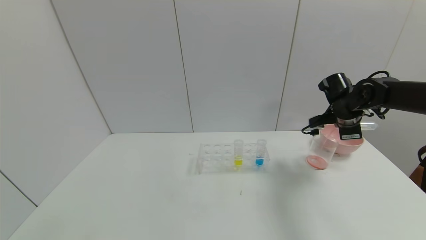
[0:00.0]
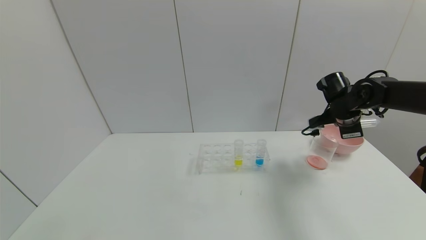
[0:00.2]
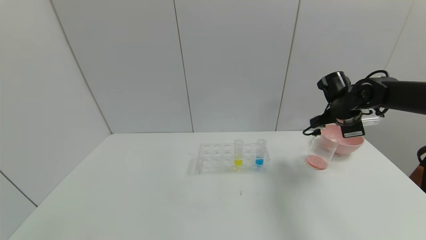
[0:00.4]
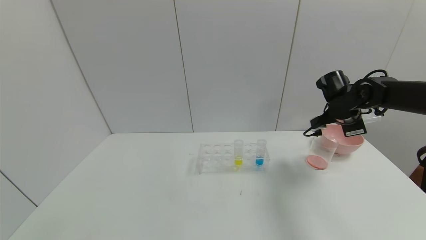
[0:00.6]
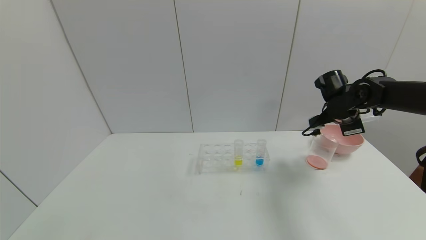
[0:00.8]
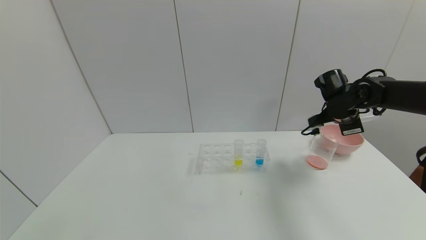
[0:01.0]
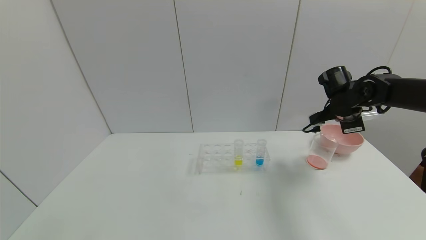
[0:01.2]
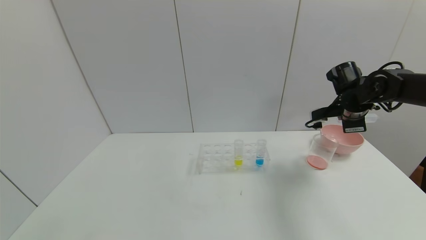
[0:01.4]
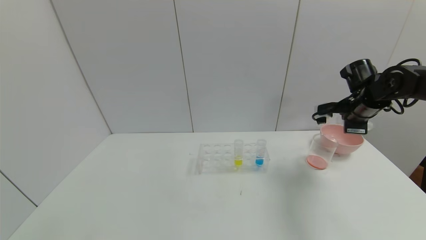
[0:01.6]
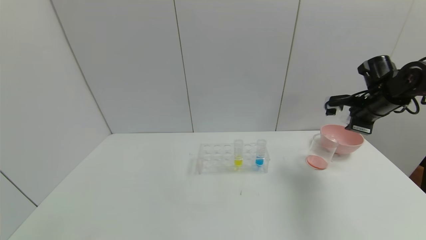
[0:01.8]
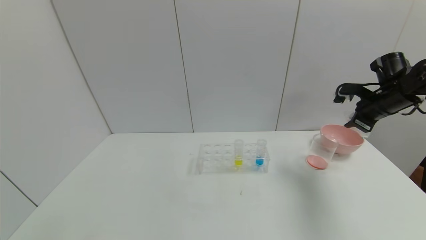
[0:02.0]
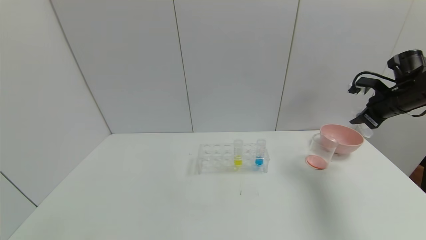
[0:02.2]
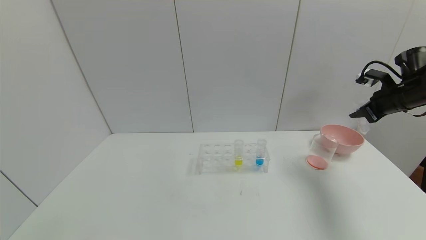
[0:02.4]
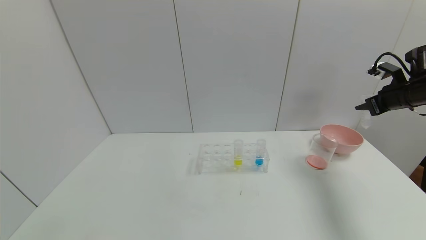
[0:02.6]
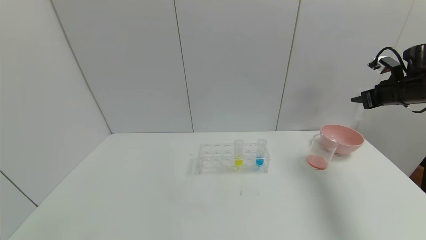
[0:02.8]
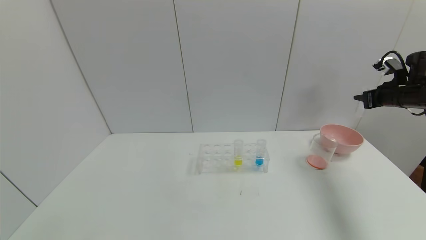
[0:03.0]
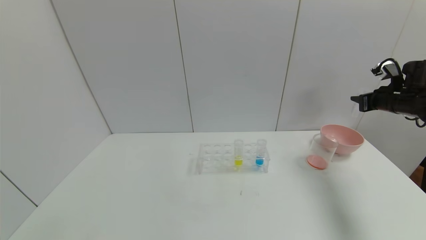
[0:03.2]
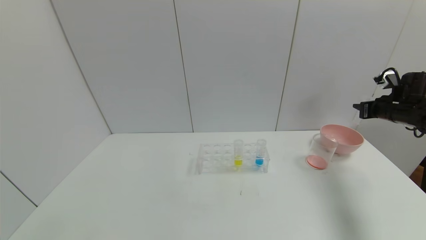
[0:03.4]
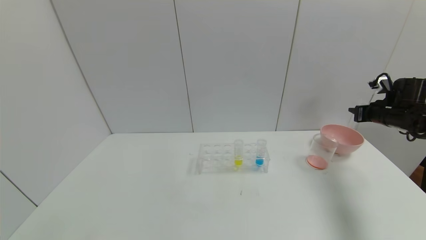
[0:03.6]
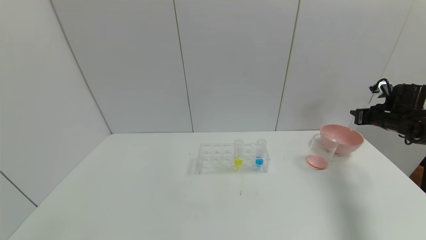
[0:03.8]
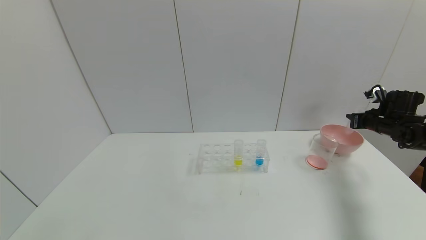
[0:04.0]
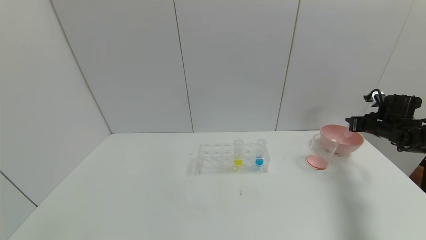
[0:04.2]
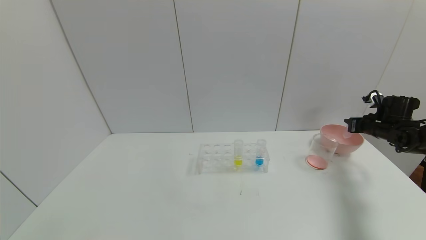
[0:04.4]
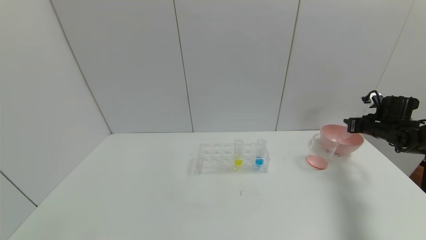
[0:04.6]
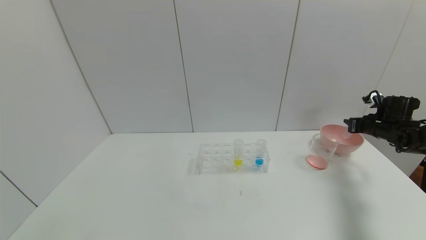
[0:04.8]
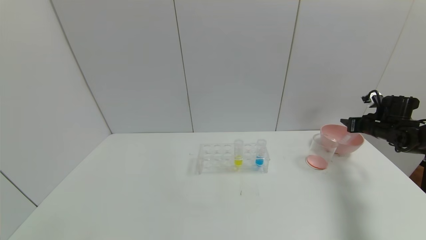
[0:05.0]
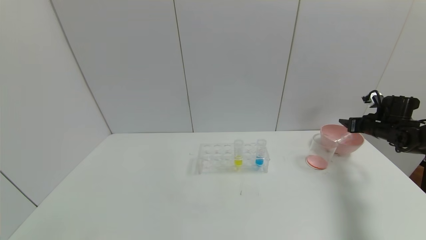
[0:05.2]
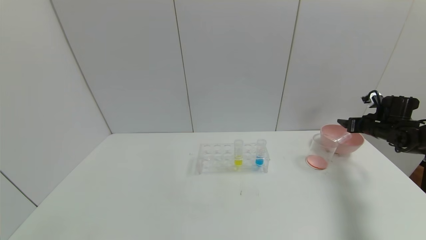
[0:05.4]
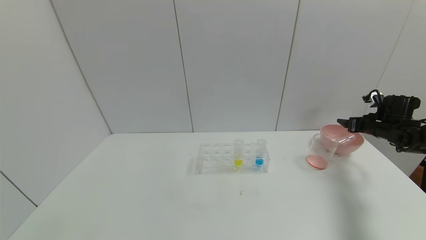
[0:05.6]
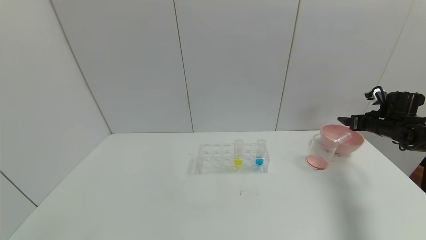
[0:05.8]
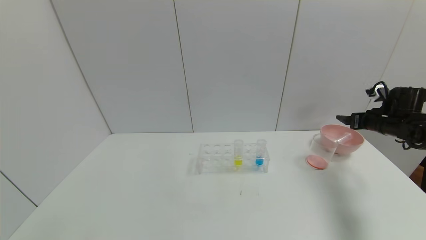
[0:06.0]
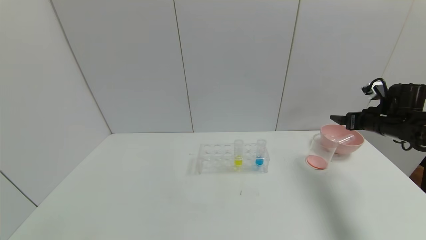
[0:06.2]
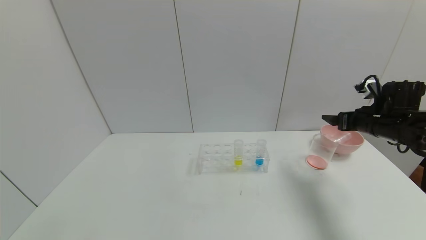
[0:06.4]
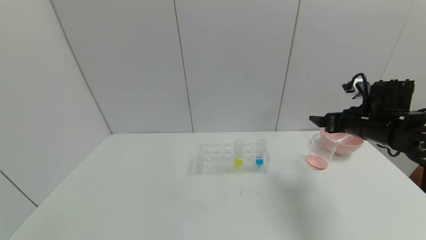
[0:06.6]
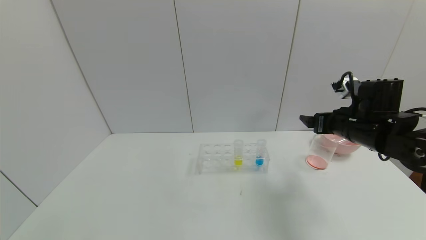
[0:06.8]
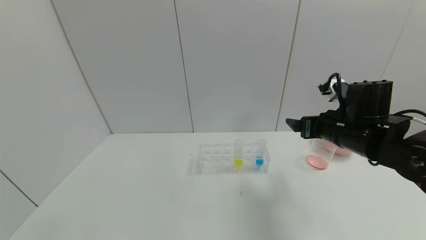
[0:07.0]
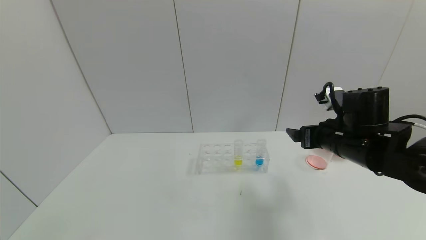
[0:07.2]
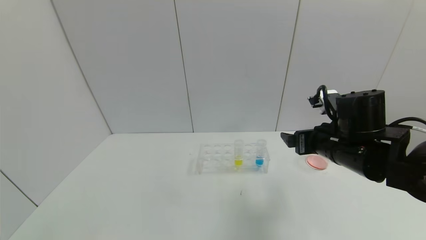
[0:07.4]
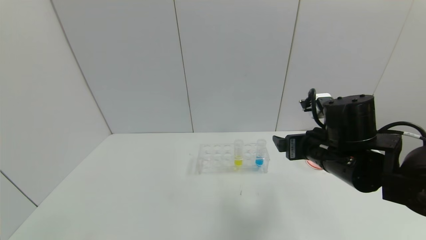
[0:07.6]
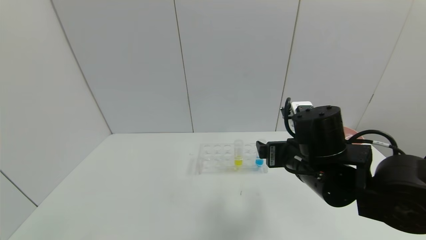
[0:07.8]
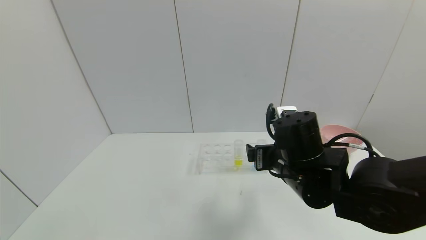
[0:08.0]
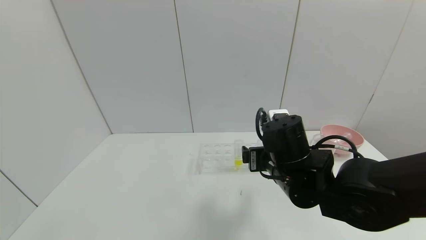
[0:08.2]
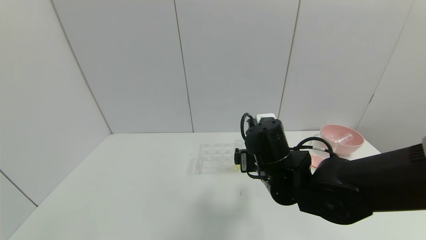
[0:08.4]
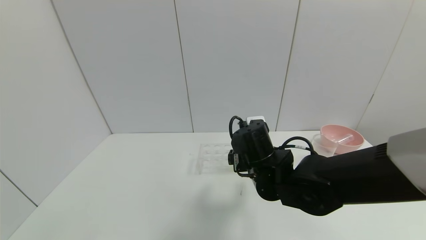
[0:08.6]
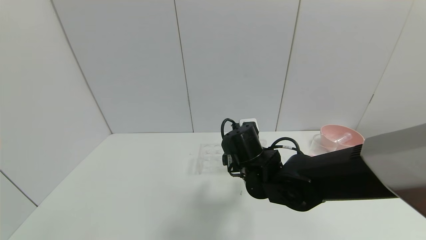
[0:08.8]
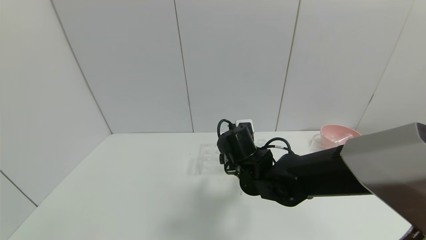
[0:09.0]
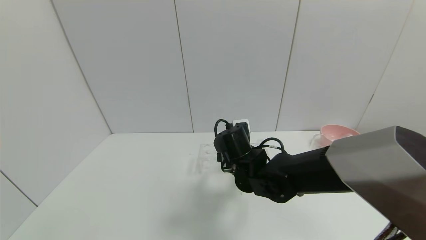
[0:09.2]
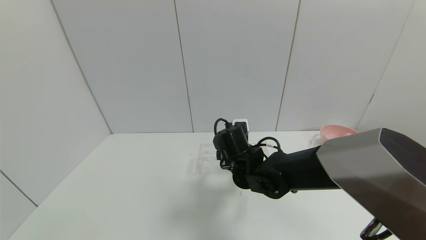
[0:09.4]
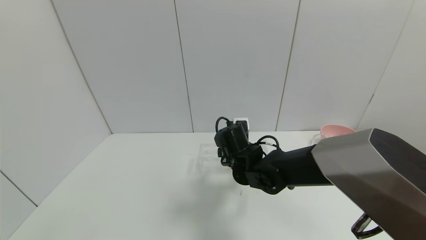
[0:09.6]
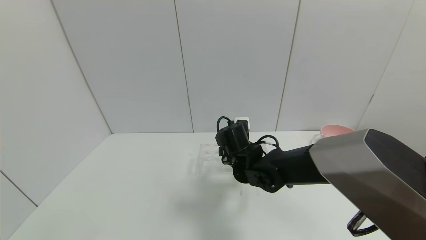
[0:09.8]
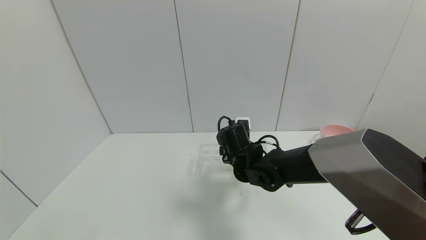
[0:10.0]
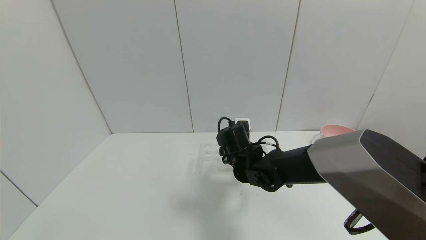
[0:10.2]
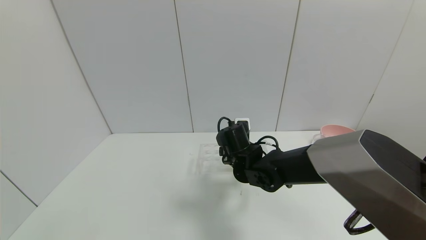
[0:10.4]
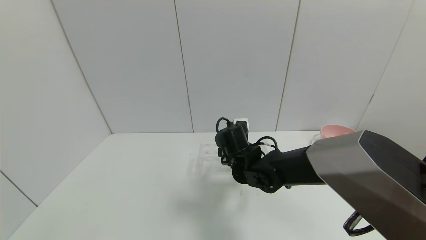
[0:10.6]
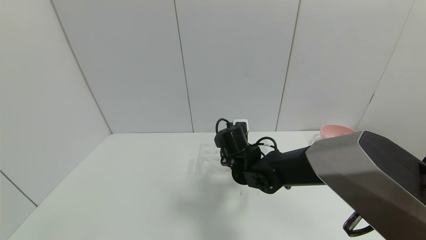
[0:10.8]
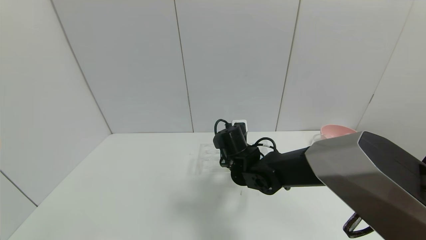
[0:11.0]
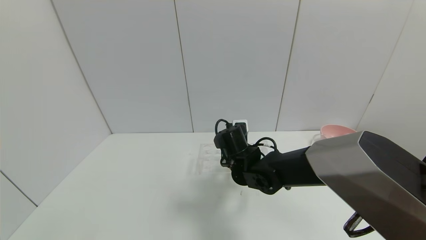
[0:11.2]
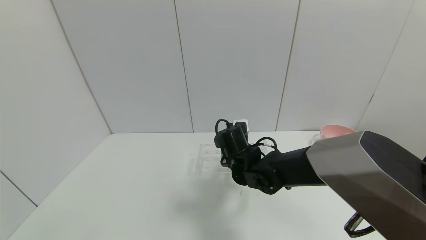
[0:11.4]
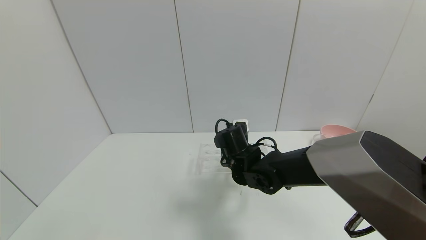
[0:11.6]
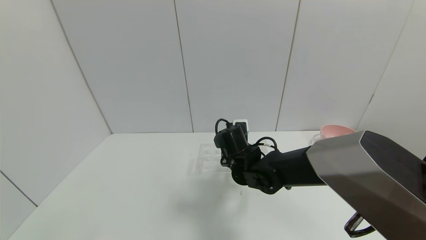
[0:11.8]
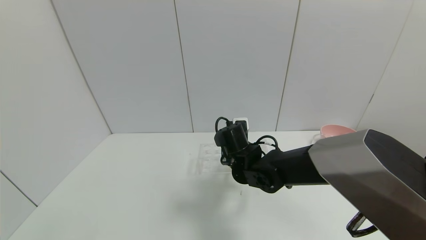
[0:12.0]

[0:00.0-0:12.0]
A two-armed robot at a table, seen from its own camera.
Task of the whole recording: pick up the test tube with yellow pigment and the test tube with red pigment by grippers and pour them into the beaker.
Step, 0:00.8 to 0:05.8: Place the test tube into the bowl with the right gripper.
Step, 0:06.0 to 0:11.8: Grasp the yellow reagent with the right gripper.
0:00.0 to 0:01.6: There are only small adjustments of the grippers.
0:01.6 to 0:03.0: The right gripper travels to the right by roughly 10 cm.
0:03.0 to 0:04.4: The right gripper is displaced downward by roughly 10 cm.
0:04.4 to 0:06.0: The right gripper opens up.
0:06.0 to 0:07.6: The right gripper shifts roughly 30 cm to the left and backward.
0:07.6 to 0:09.0: The right gripper shifts some 15 cm to the left, downward and forward.
0:09.0 to 0:10.4: The grippers move only a little.
0:10.4 to 0:12.0: The right gripper closes its fingers.

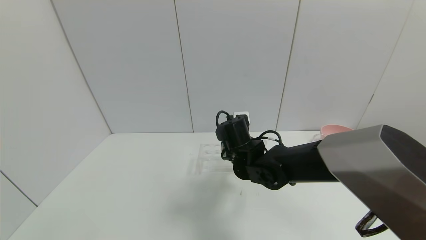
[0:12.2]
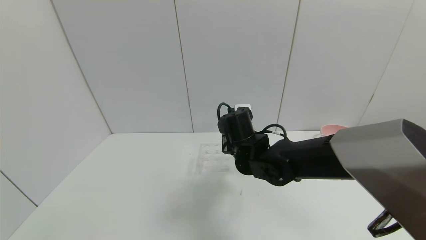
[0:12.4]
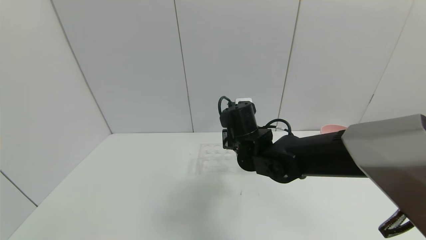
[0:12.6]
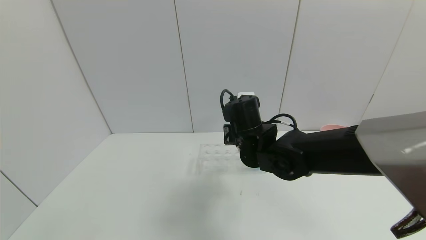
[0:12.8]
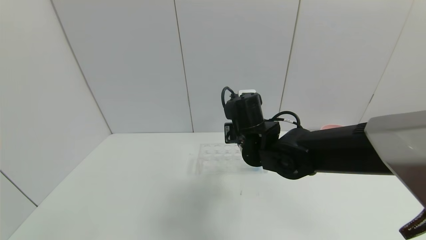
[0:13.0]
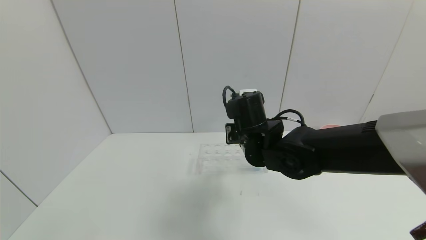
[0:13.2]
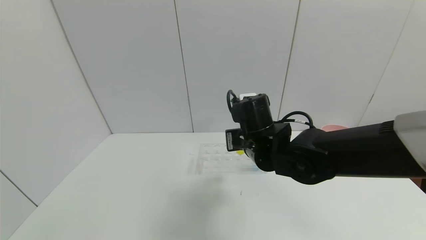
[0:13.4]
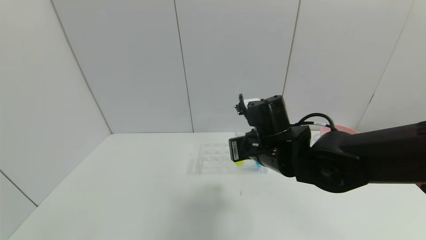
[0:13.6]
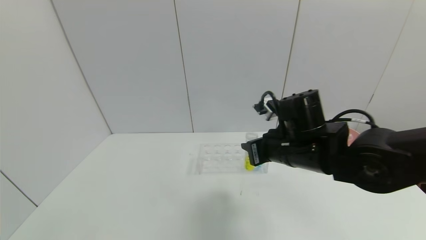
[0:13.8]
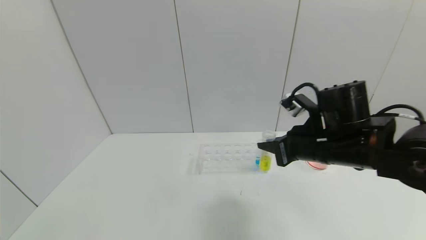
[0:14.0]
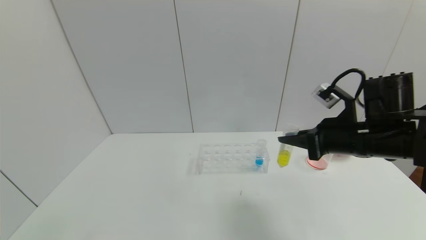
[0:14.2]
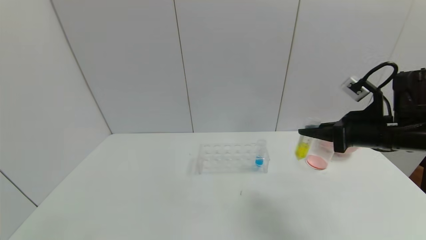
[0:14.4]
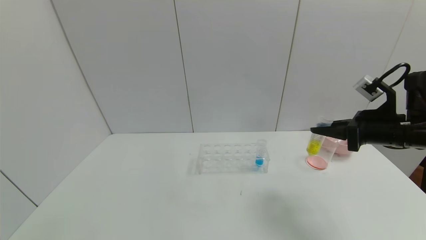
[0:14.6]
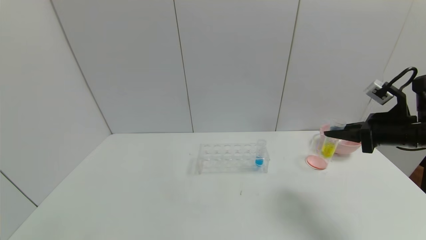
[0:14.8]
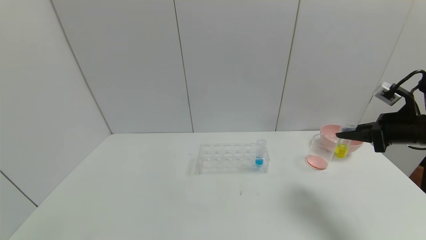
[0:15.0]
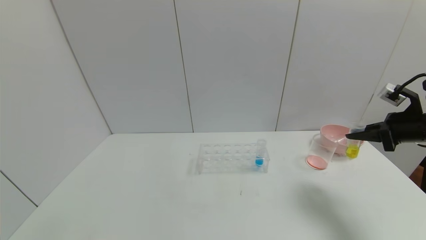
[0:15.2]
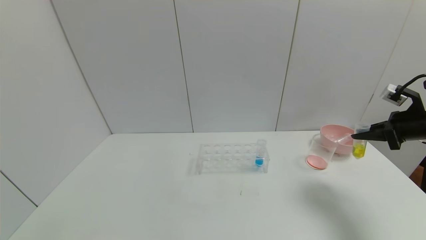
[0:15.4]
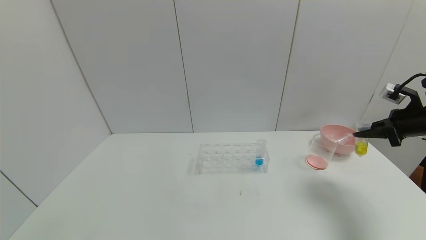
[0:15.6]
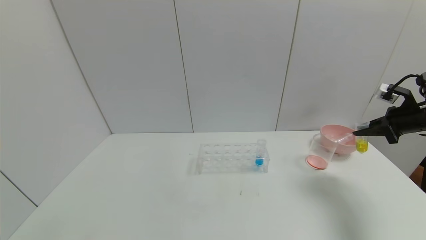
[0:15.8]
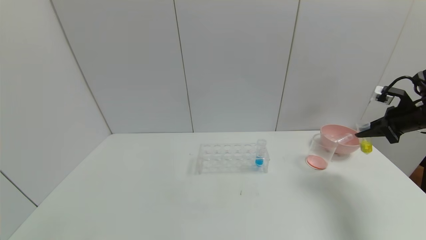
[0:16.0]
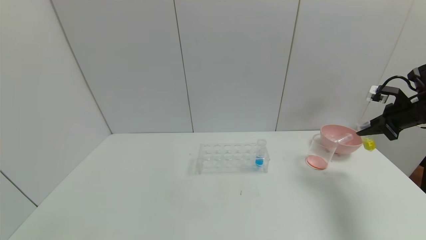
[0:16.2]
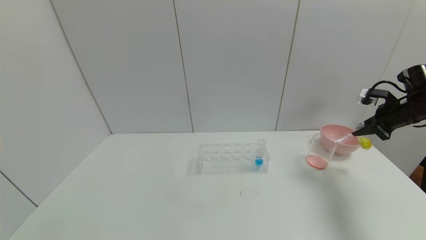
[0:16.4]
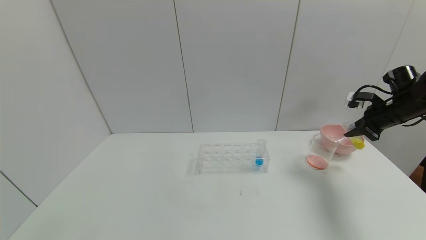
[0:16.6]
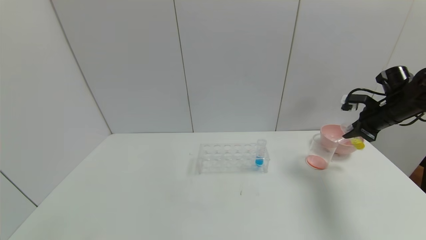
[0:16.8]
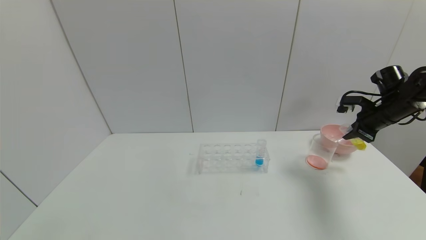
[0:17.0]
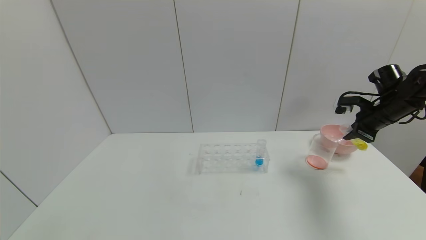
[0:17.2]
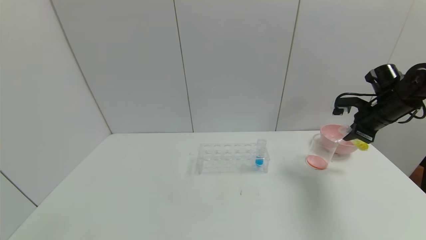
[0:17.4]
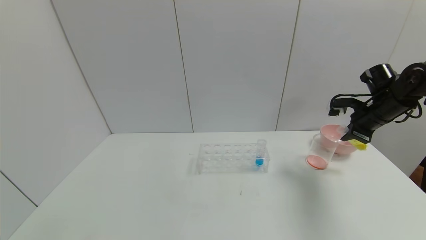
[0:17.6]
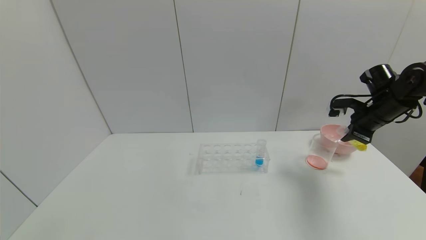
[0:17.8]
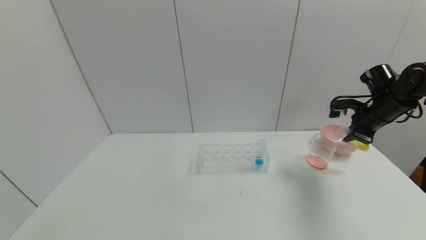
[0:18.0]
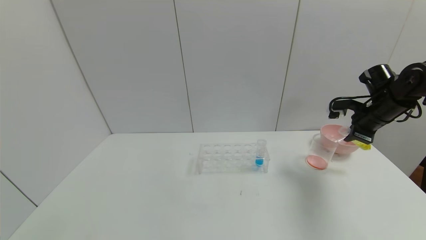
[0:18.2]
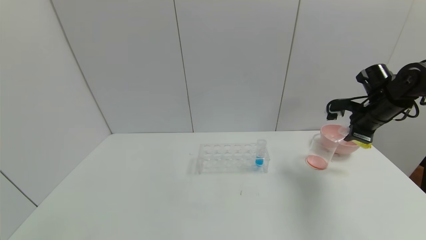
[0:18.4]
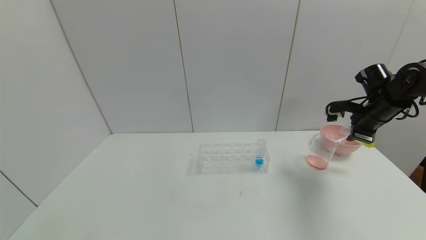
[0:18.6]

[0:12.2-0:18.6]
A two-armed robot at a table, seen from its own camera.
Task of the whole recording: pick up the test tube with yellow pigment and the test tube with red pigment by grippers and pour them into the beaker.
0:12.2 to 0:13.8: The right gripper travels to the right, upward and backward by roughly 15 cm.
0:13.8 to 0:15.4: The right gripper goes about 30 cm to the right.
0:15.4 to 0:17.0: The right gripper moves forward, about 10 cm.
0:17.0 to 0:18.6: The grippers make only small movements.
